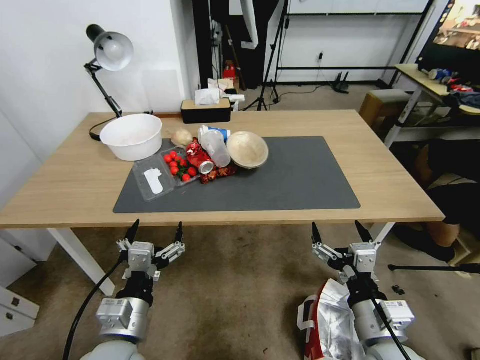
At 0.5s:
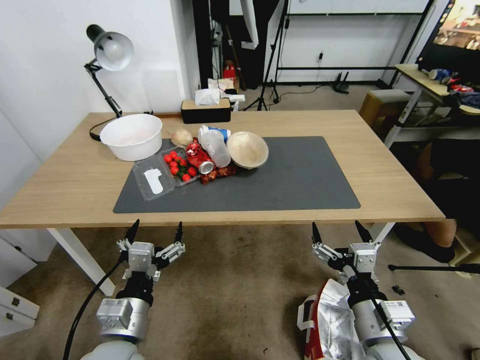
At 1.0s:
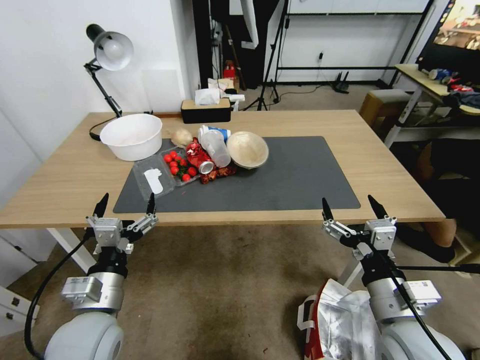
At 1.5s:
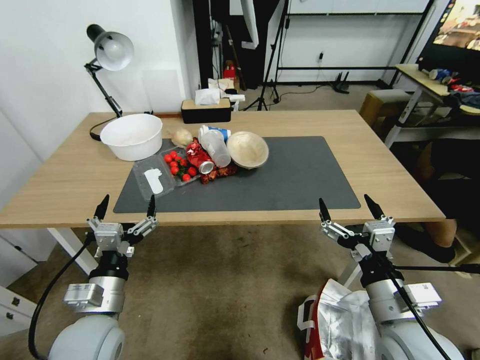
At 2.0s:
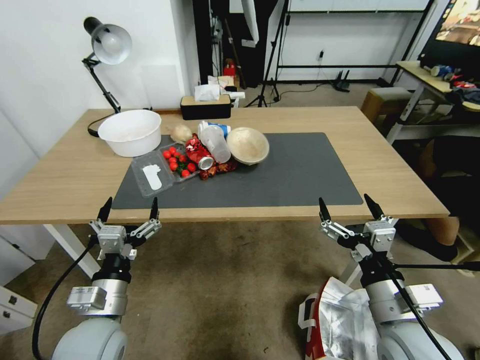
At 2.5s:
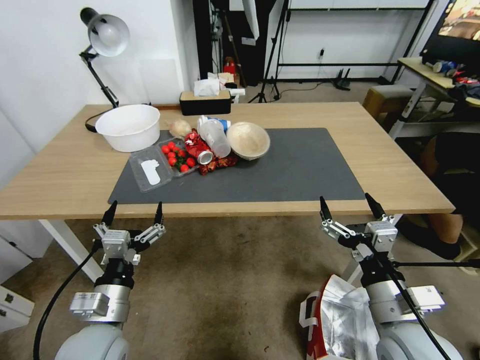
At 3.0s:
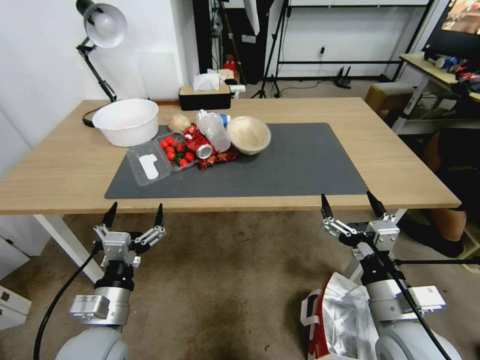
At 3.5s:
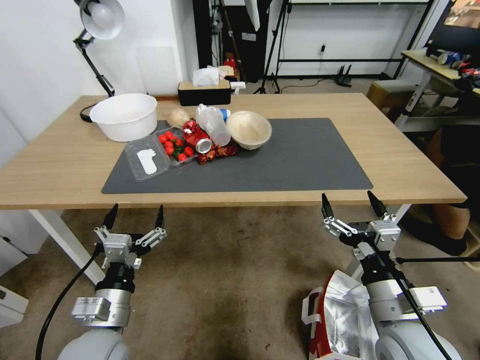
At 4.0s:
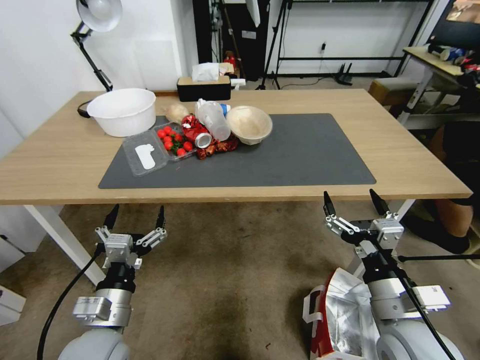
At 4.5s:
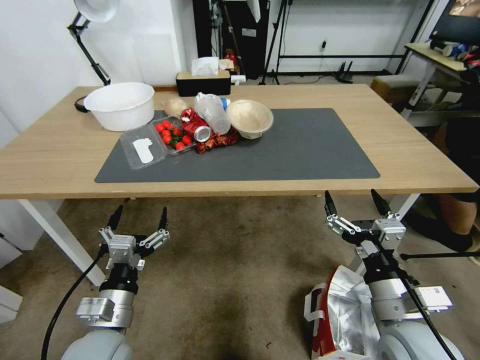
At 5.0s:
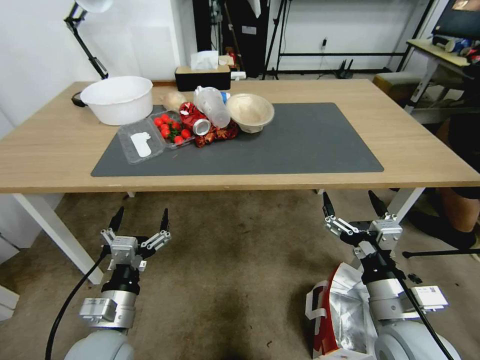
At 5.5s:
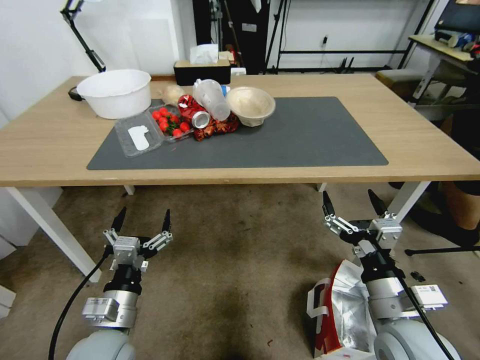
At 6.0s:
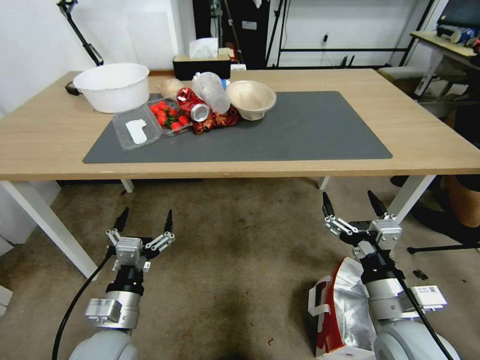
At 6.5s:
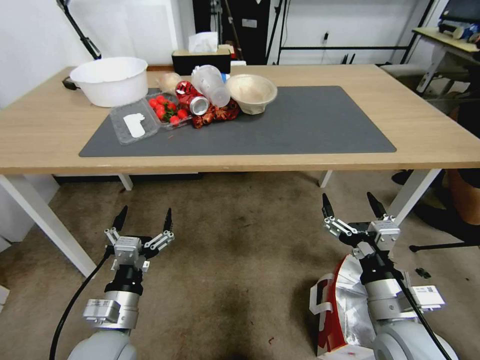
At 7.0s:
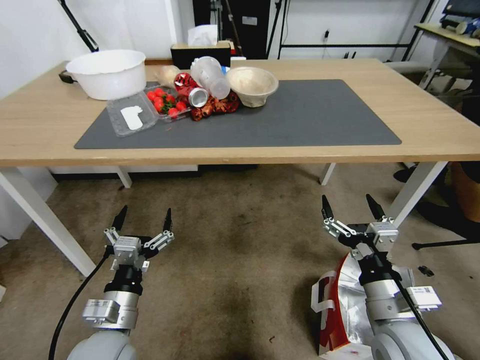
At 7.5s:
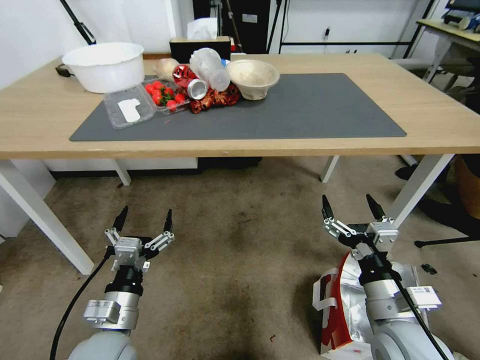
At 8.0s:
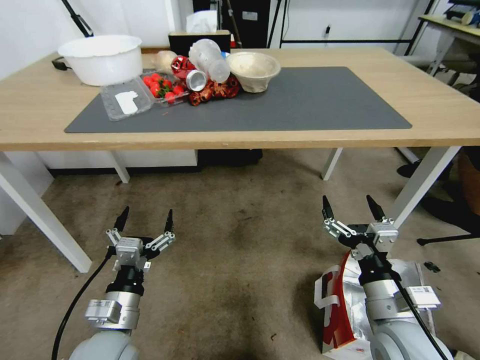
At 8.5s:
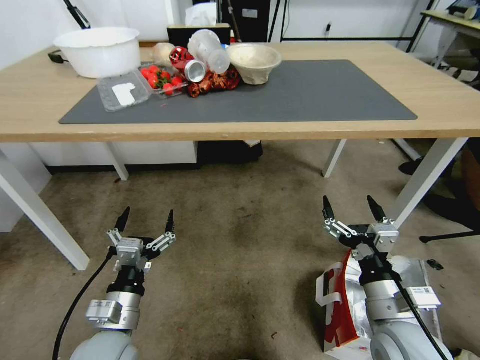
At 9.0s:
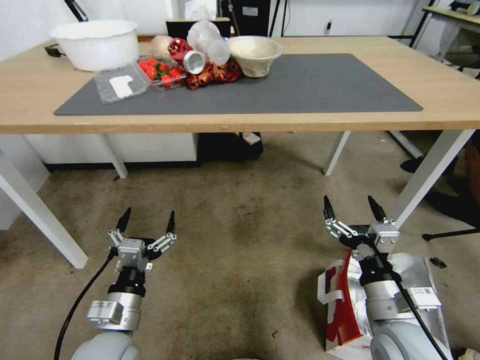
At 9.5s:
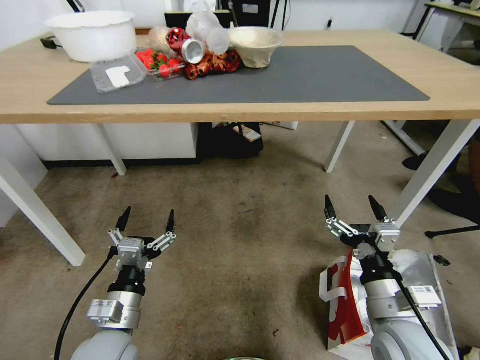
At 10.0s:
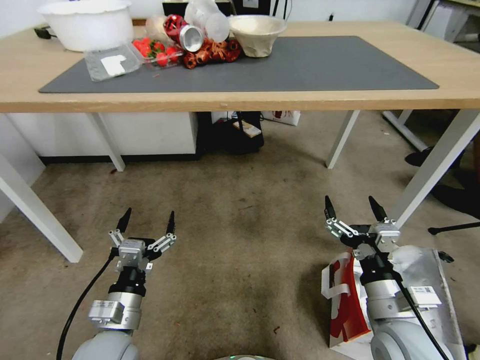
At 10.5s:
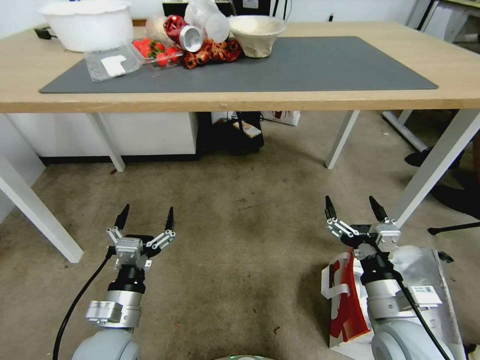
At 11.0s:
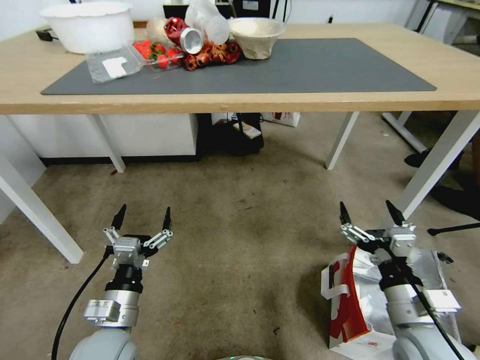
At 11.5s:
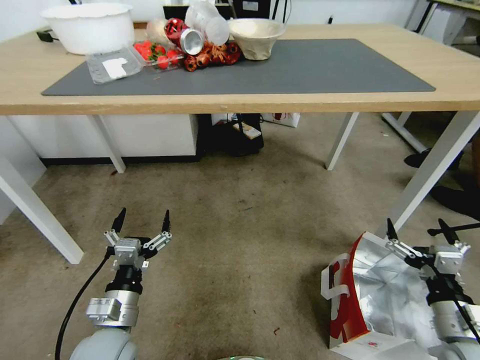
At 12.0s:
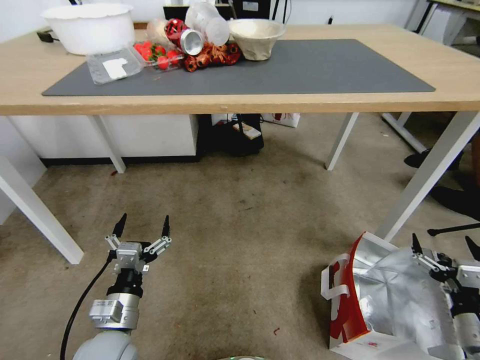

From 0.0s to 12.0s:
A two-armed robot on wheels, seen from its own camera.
Task of the whole recording: Pick up the food delivery bag from the floor and place it on the table.
From 10.0s to 12.0s: The right gripper travels to the right and downward by approximately 20 cm.

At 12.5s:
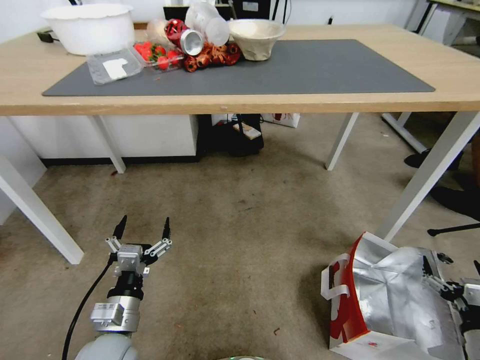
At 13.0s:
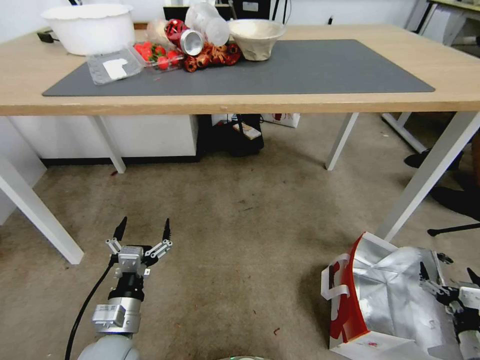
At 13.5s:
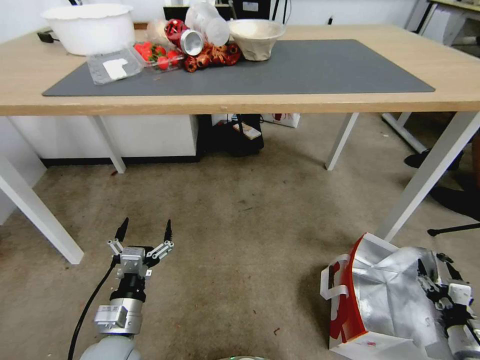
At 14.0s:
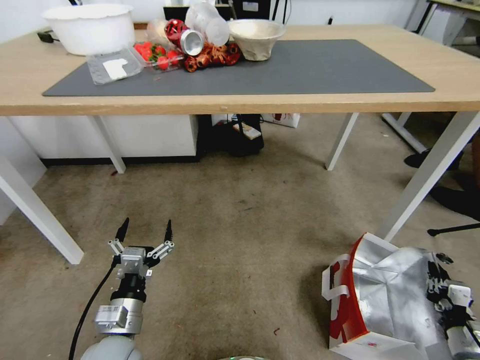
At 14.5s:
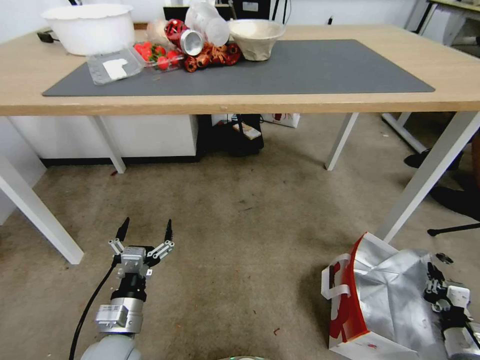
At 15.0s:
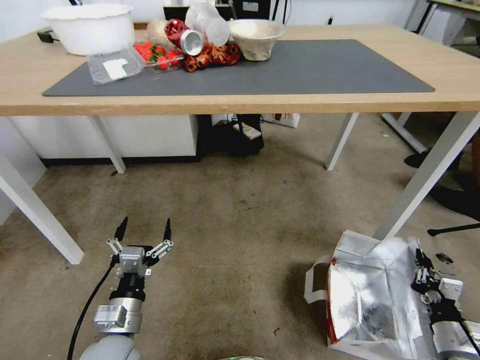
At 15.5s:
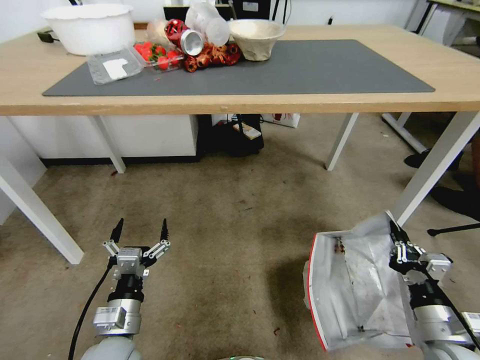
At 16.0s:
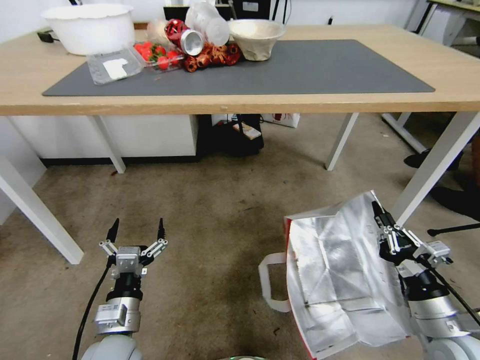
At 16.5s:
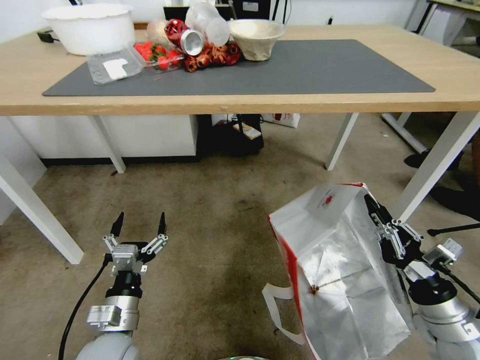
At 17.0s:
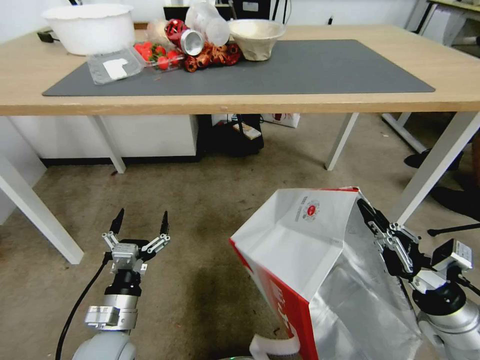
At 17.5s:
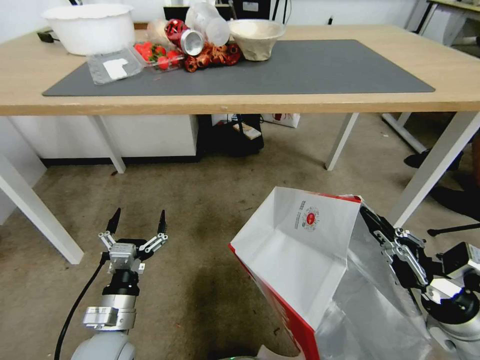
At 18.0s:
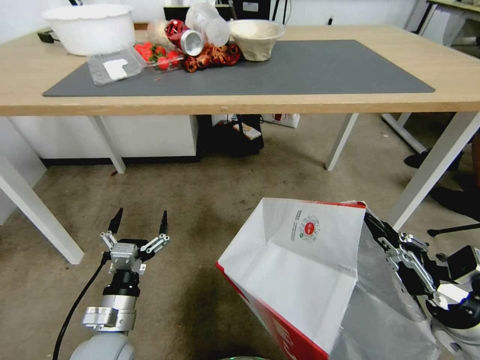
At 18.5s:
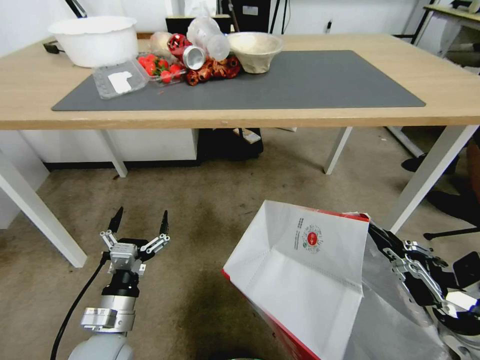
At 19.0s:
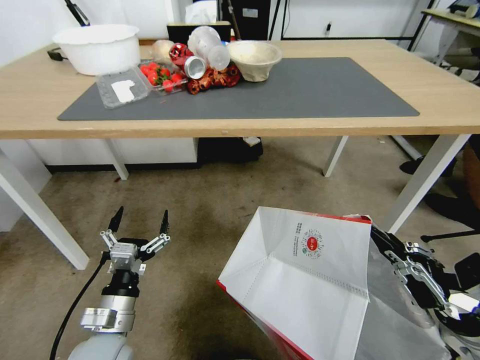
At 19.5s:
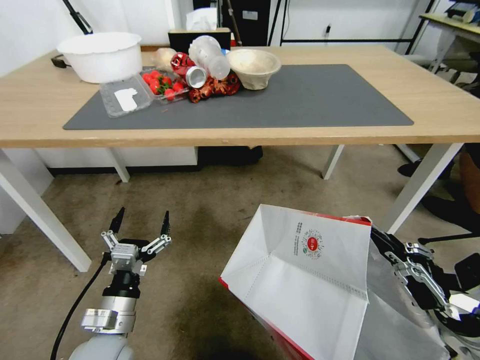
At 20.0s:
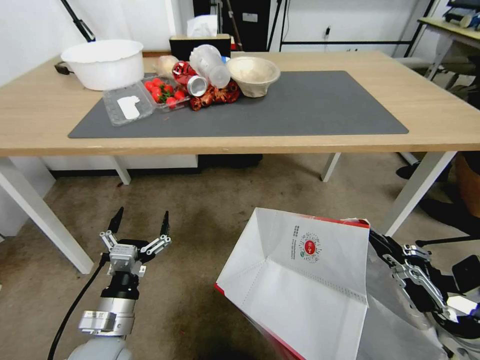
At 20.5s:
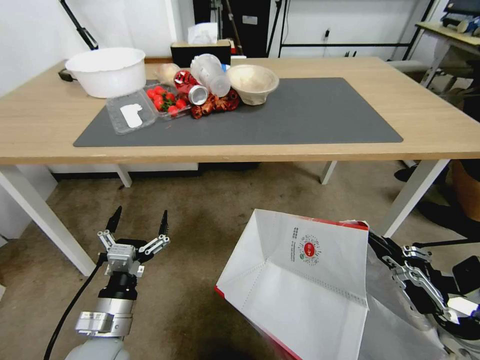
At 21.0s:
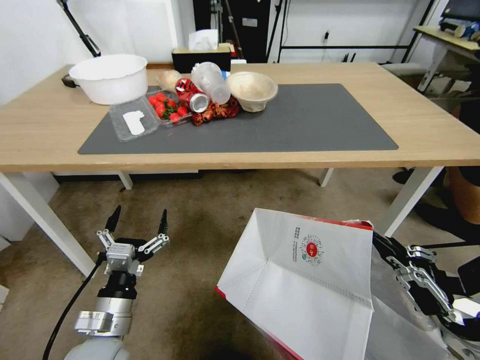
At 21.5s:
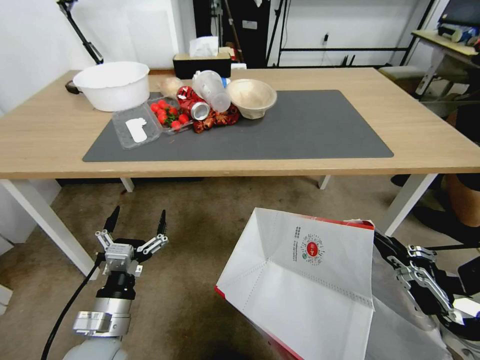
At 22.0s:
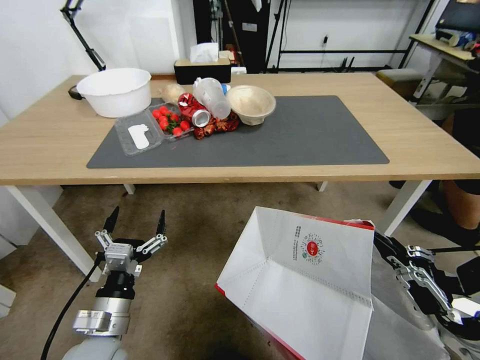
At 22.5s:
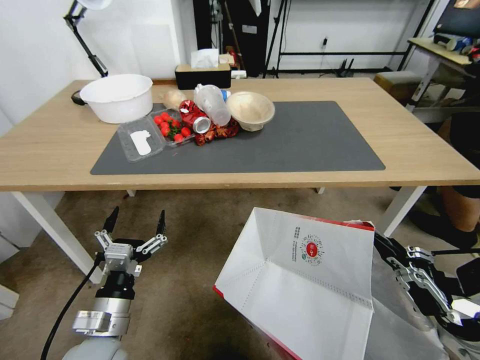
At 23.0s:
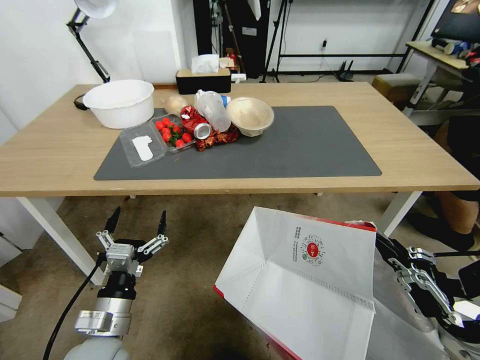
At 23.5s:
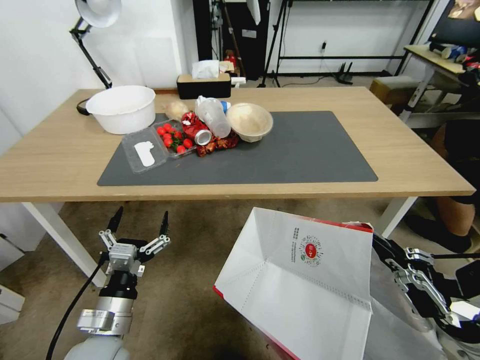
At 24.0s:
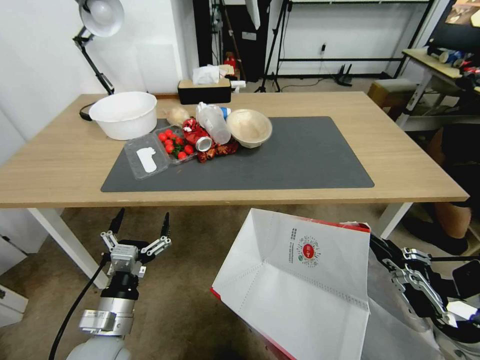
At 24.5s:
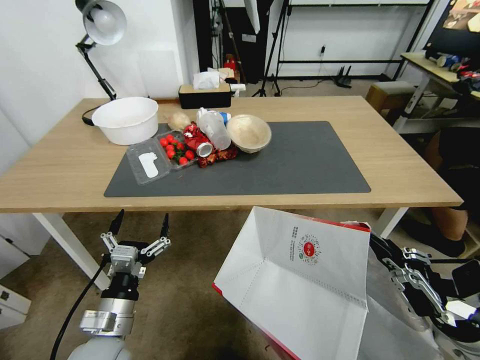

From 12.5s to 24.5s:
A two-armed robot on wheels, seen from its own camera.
Task of the whole recording: Pick up the food delivery bag from the floor and place it on the table.
From 12.5s to 14.5s: The right gripper closes up.
From 14.5s to 16.5s: The right gripper moves upward and to the left, roughly 20 cm.

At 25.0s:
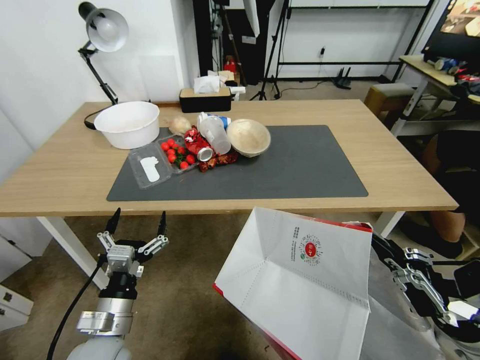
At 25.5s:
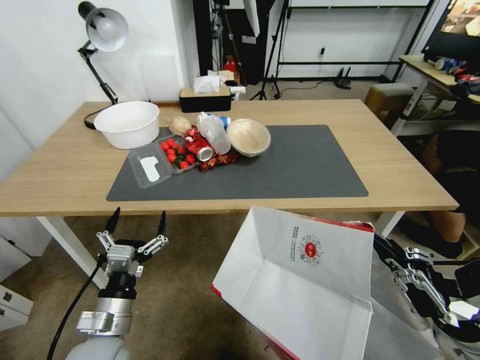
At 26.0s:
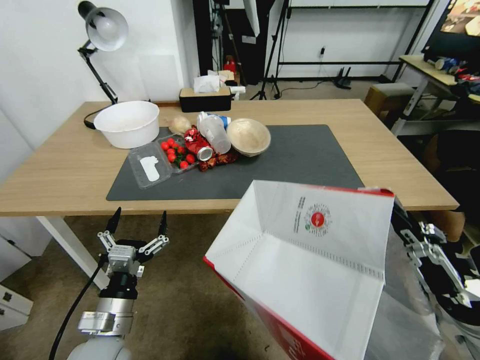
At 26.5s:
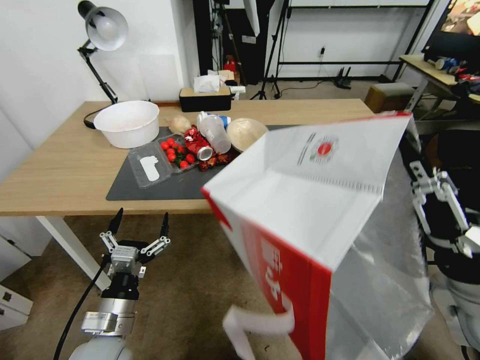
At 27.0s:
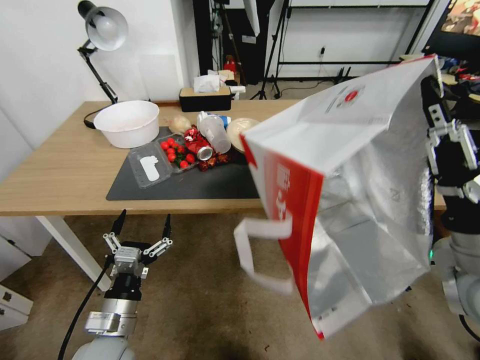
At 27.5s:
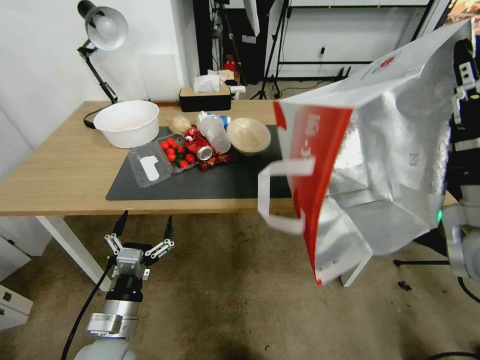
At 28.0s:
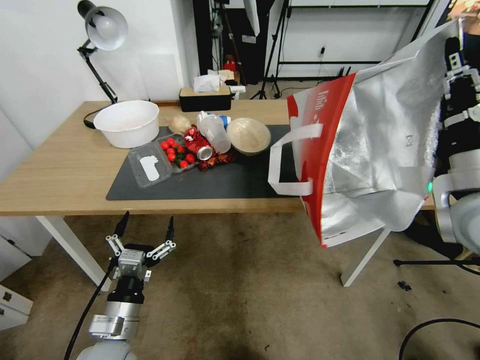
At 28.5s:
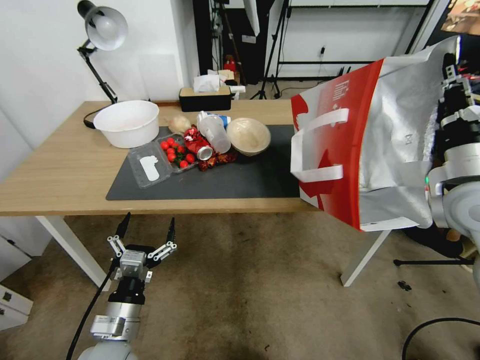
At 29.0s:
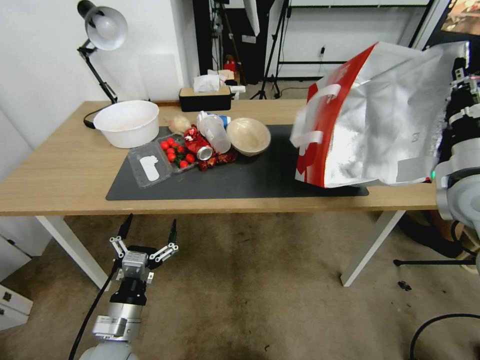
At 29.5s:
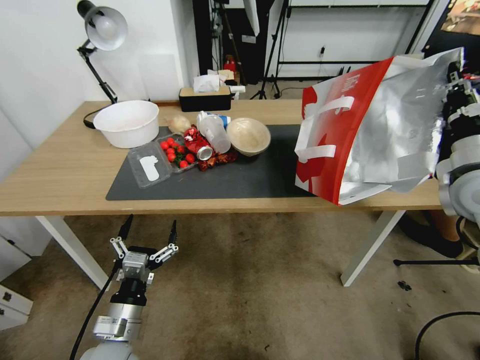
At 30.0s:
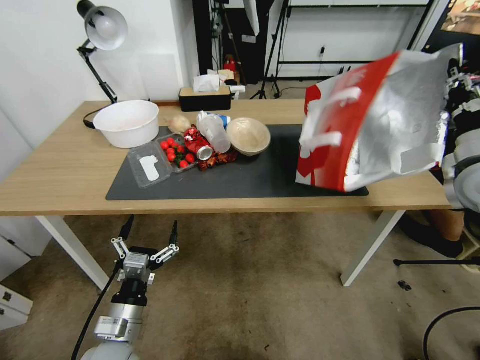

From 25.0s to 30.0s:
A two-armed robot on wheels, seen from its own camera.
Task of the whole recording: Pick up the food delivery bag from the floor and place it on the table.
From 25.0s to 27.5s: The right gripper moves upward and forward, approximately 15 cm.
From 27.5s to 30.0s: The right gripper moves forward and to the right, about 15 cm.
